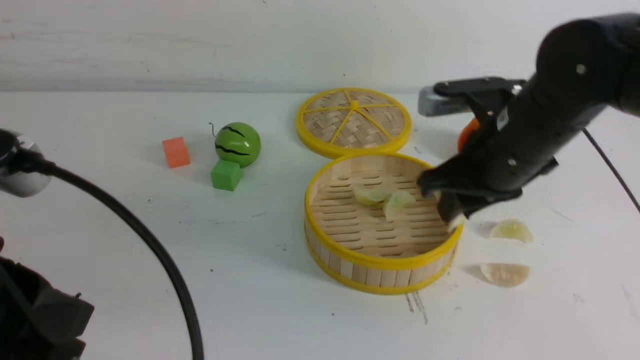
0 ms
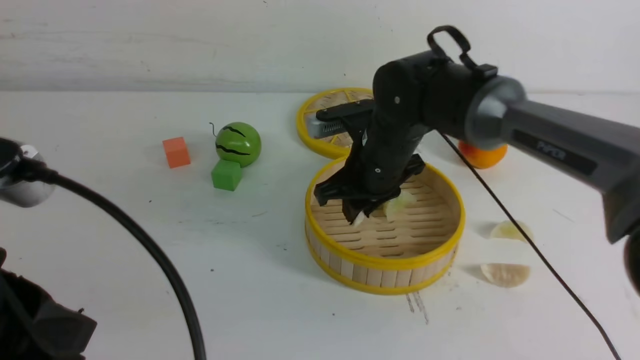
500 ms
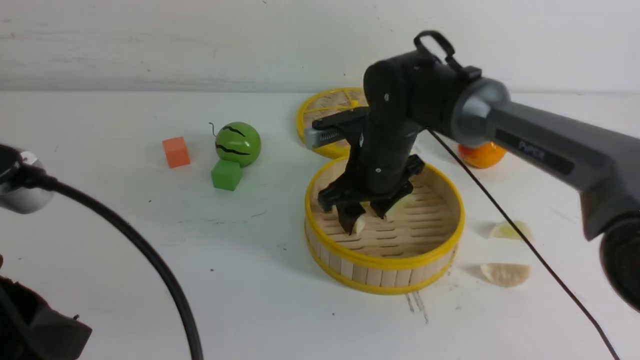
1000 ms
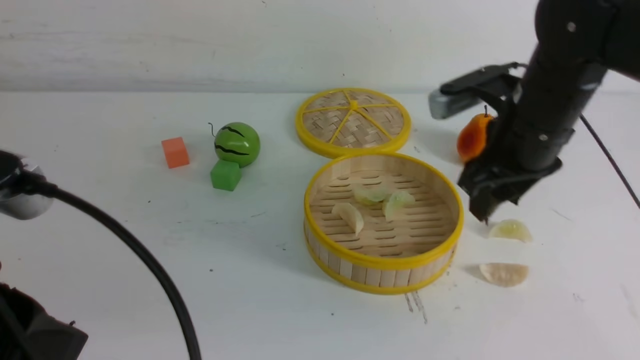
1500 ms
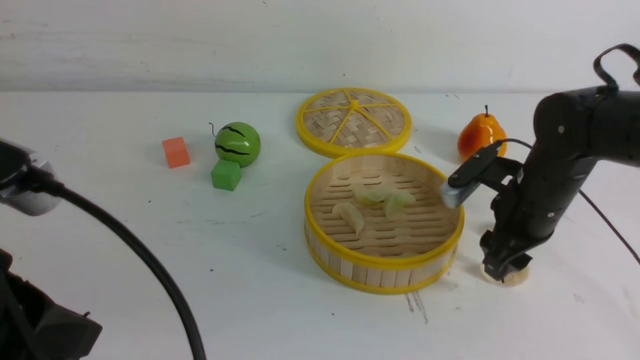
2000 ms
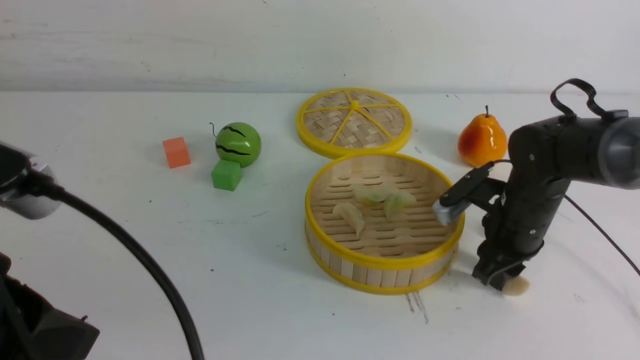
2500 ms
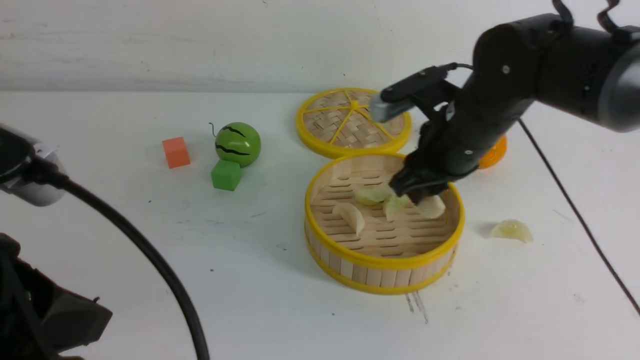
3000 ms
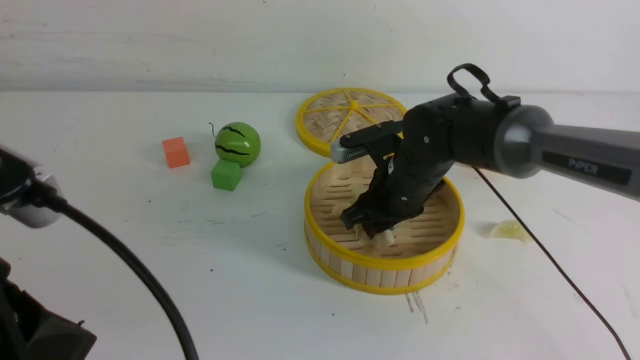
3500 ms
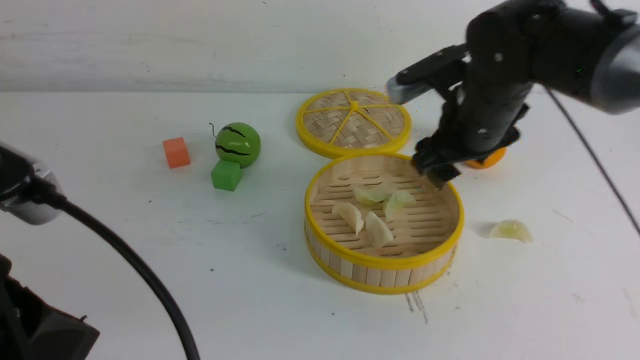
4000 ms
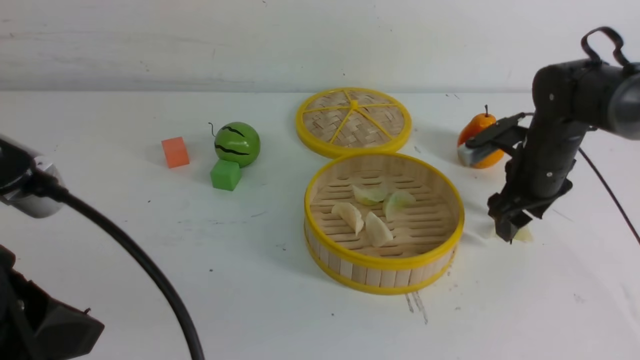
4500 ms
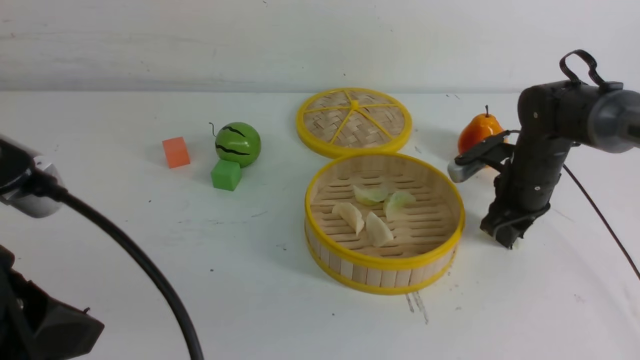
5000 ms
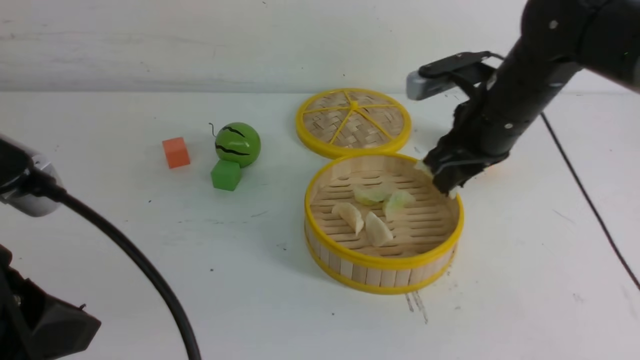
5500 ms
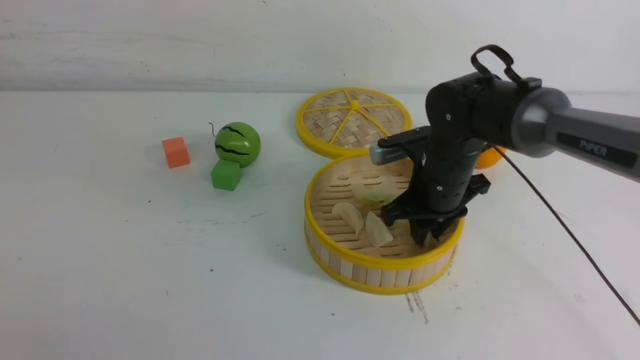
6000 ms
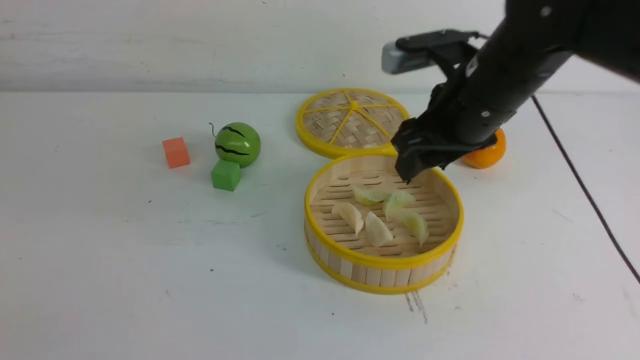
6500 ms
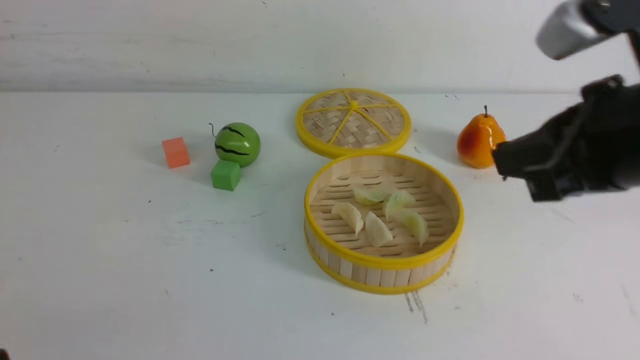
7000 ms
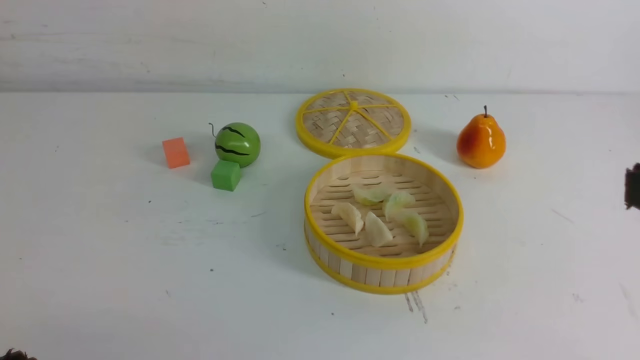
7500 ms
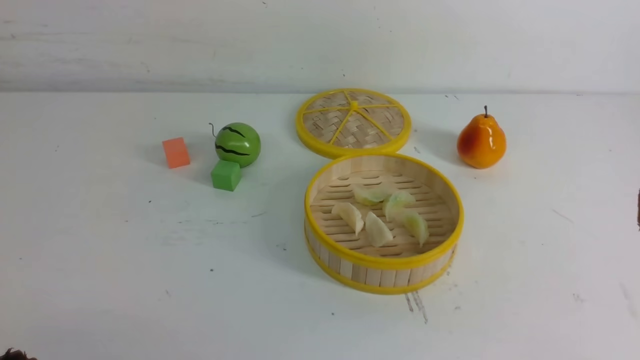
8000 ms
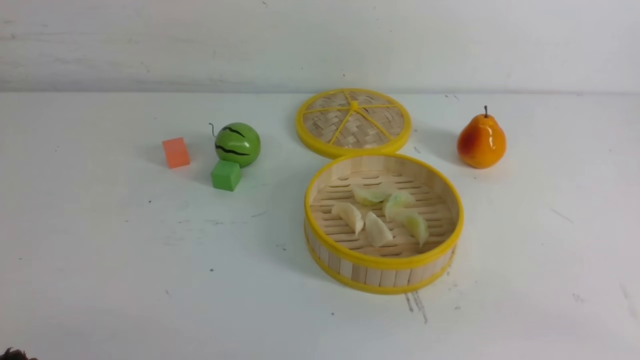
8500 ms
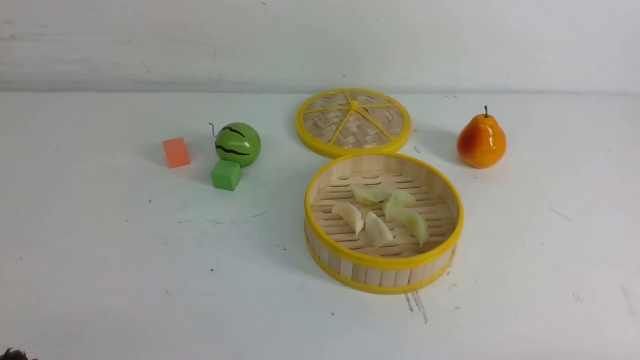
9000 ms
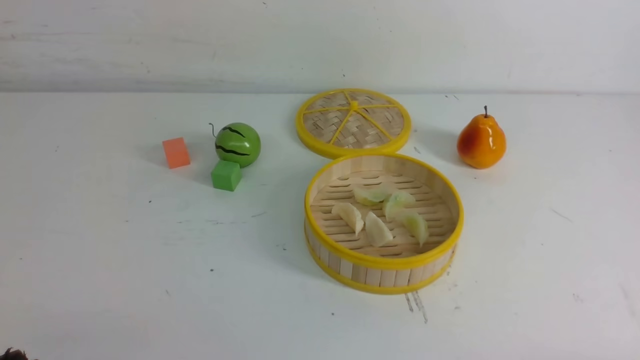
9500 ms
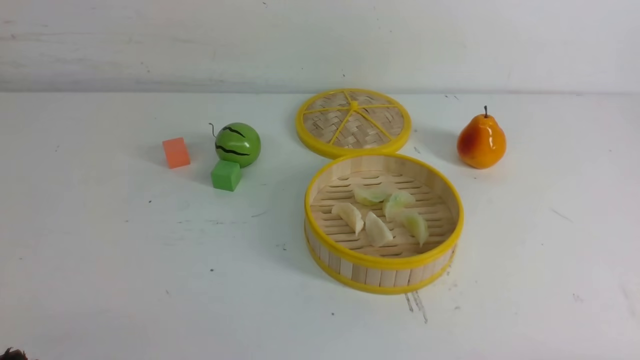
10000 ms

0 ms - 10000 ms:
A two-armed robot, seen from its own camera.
Task of the whole recording: put the dumplings into the steamer on the white table.
Step, 500 ms - 2500 ms: use the right arm to grab a dumpling.
Step, 3000 ms - 3500 ms: use the right arm to put the dumpling into the steamer.
Step, 4000 ms - 5000 ms: use the right arm to grab a dumpling.
Step, 5500 ms - 6000 ms: use the right arm to put the dumpling into the steamer.
0 ms - 2000 ms: The right gripper goes about 10 cm downward and to the right, and opens.
2000 ms - 4000 ms: The right gripper travels upward and to the left by some 10 cm.
4000 ms - 6000 ms: The left gripper changes place by roughly 5 cm. The right gripper shifts approximately 5 cm downward, reaches approximately 10 cm to the right, then returns, and closes.
6000 ms - 8000 ms: The right gripper is displaced backward and upward by about 35 cm, and closes up. The left gripper heads downward, covering roughly 5 cm.

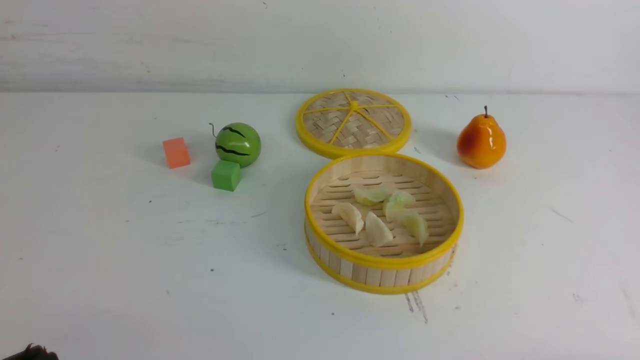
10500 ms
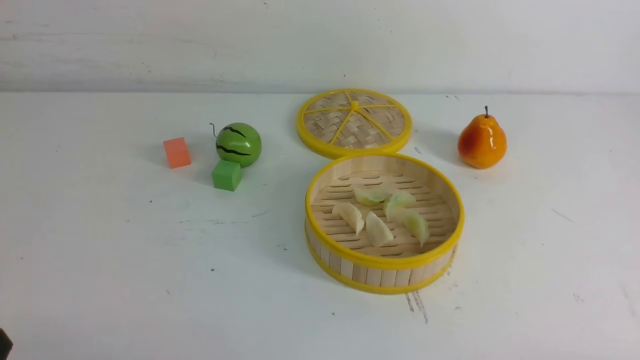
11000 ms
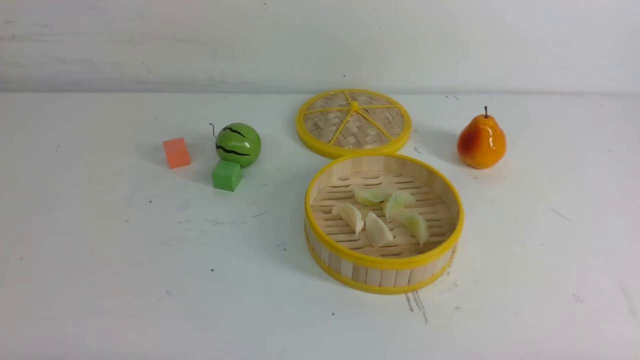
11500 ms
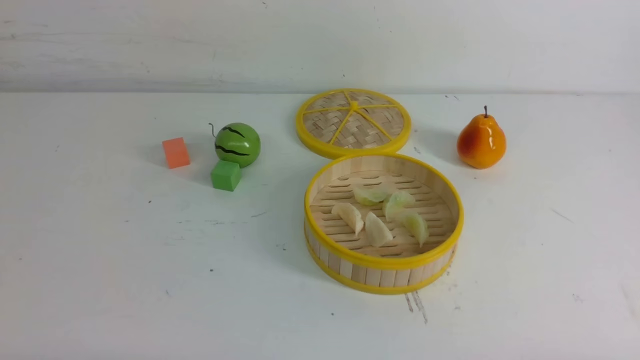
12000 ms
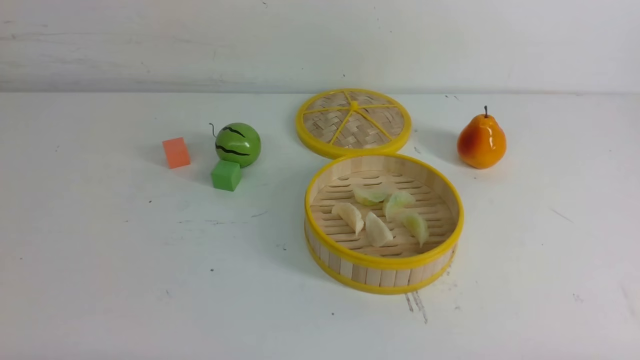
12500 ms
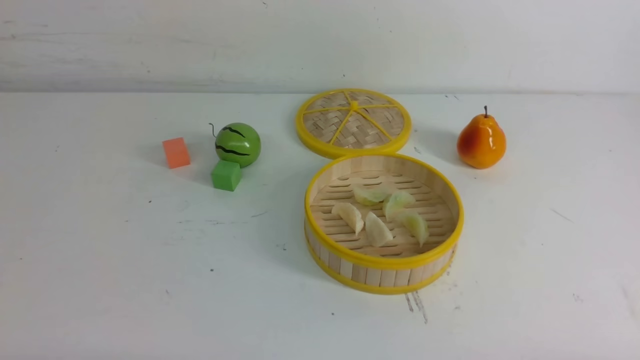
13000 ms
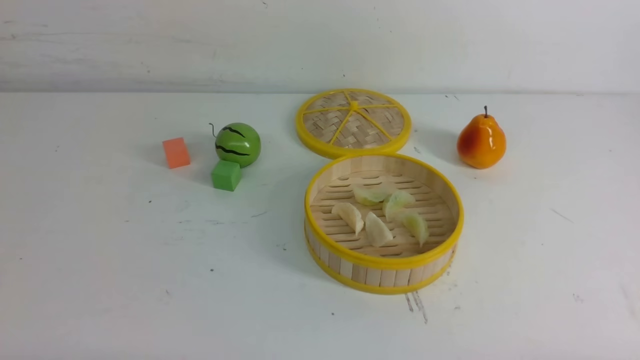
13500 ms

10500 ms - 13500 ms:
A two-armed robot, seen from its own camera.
Task of the whole recording: put the dumplings into the steamer on the white table.
12000 ms - 13500 ms: Both grippers stay about where they are.
